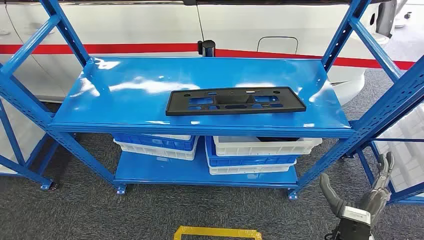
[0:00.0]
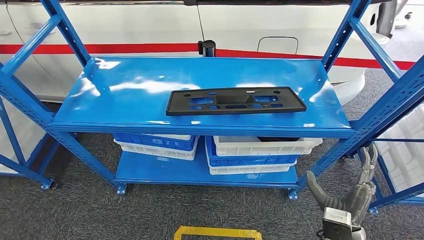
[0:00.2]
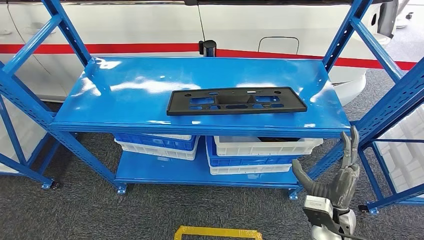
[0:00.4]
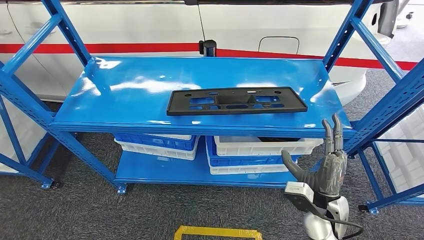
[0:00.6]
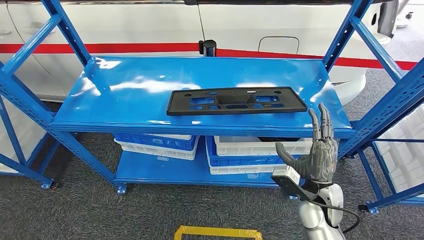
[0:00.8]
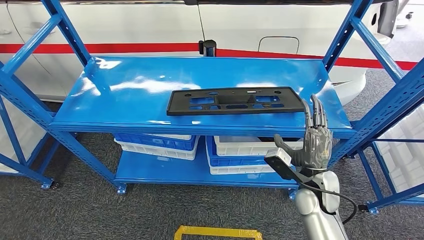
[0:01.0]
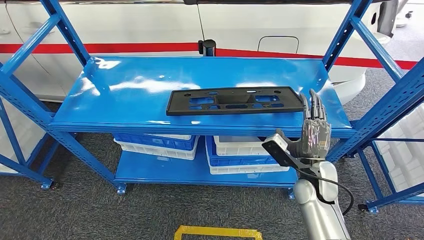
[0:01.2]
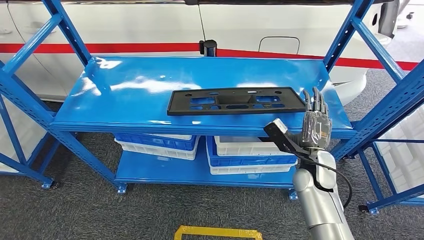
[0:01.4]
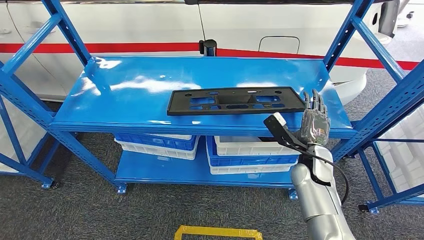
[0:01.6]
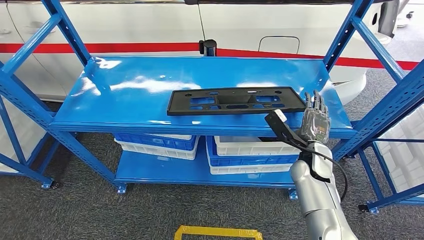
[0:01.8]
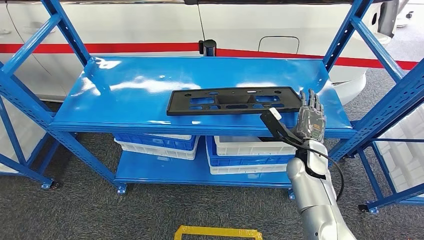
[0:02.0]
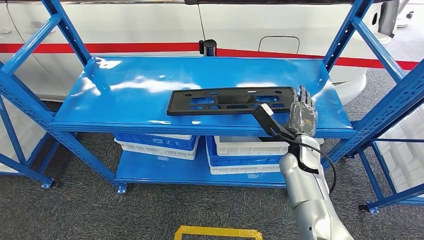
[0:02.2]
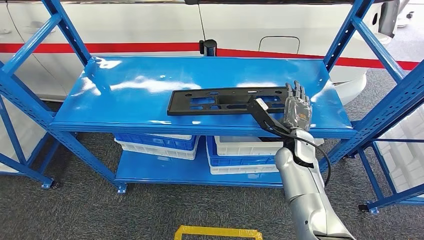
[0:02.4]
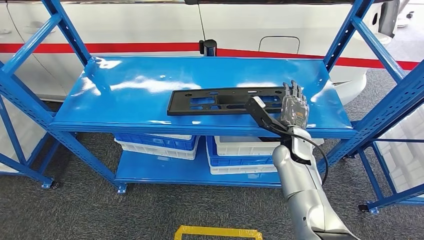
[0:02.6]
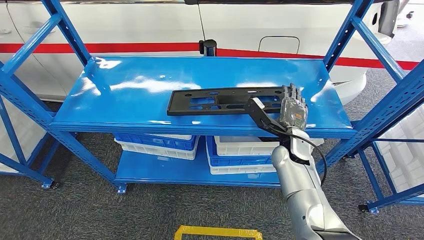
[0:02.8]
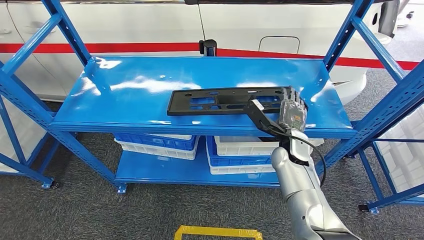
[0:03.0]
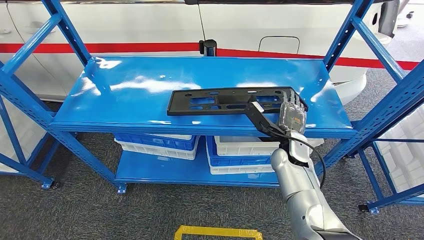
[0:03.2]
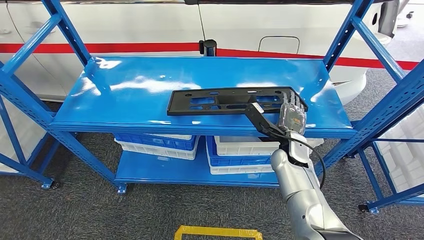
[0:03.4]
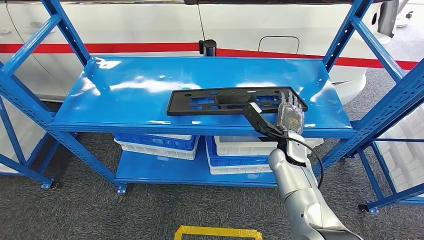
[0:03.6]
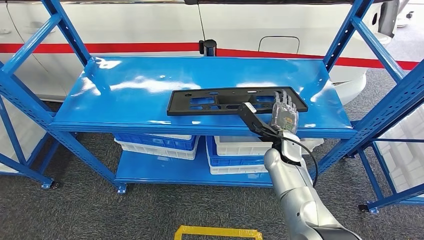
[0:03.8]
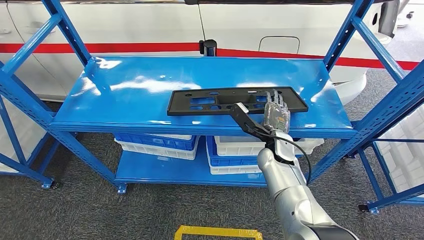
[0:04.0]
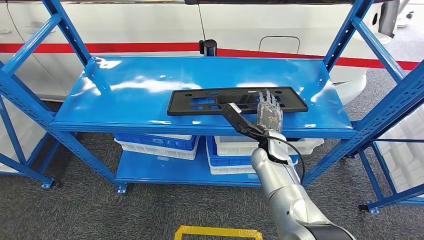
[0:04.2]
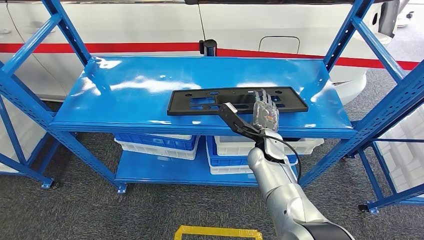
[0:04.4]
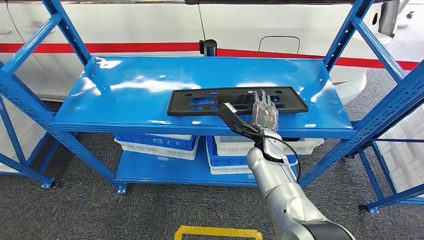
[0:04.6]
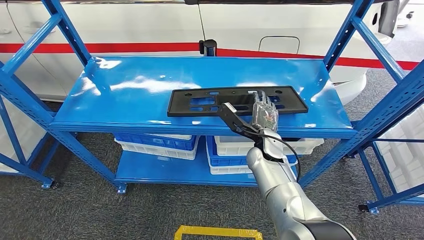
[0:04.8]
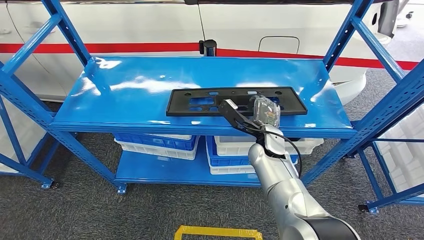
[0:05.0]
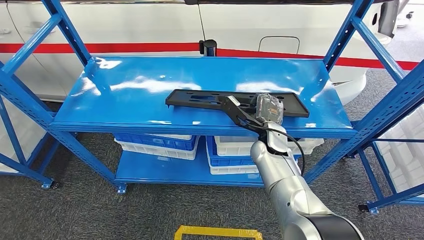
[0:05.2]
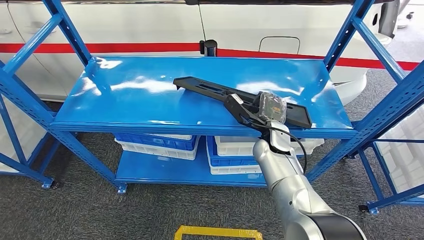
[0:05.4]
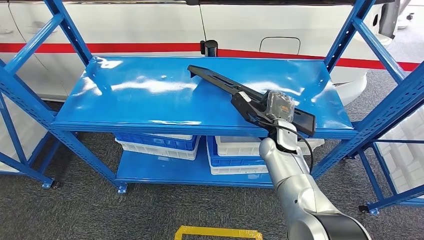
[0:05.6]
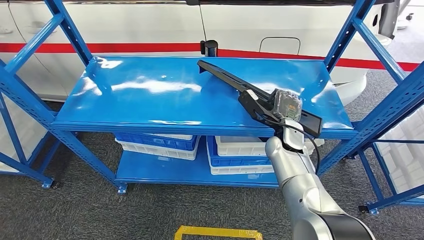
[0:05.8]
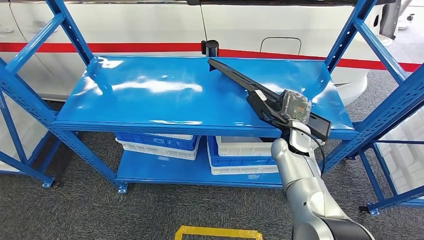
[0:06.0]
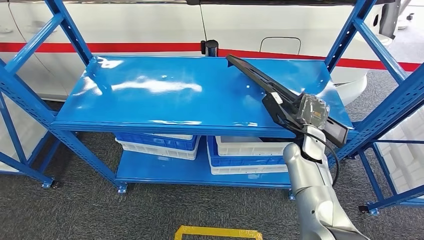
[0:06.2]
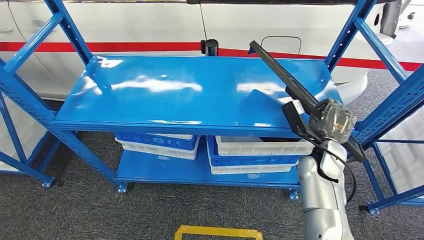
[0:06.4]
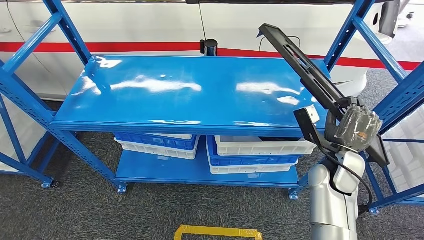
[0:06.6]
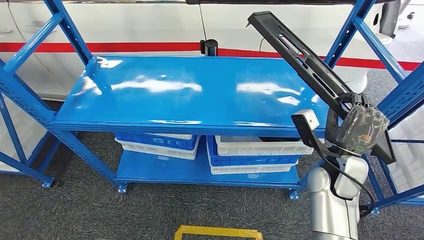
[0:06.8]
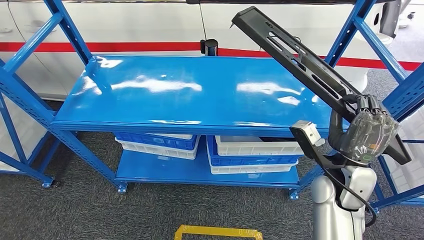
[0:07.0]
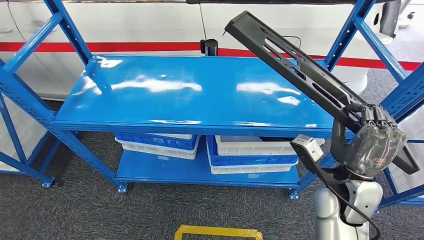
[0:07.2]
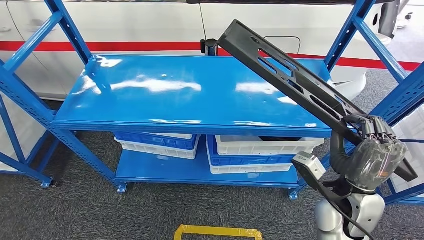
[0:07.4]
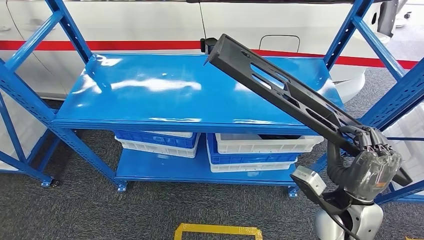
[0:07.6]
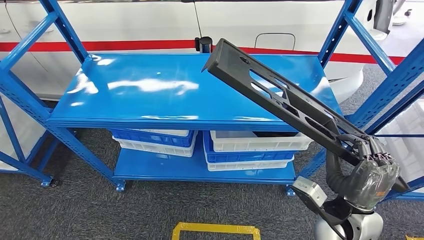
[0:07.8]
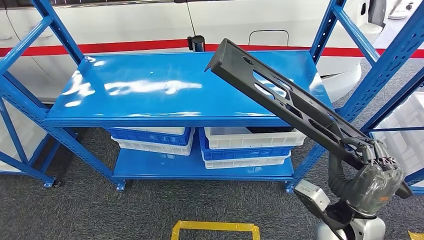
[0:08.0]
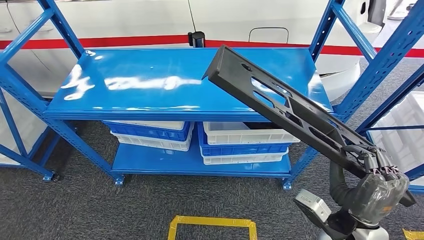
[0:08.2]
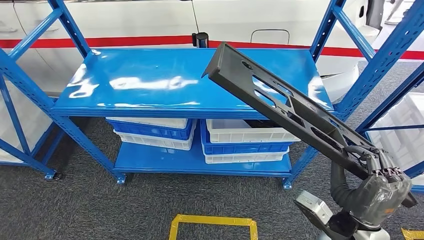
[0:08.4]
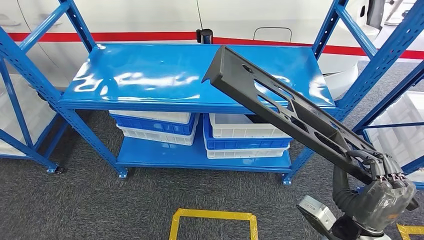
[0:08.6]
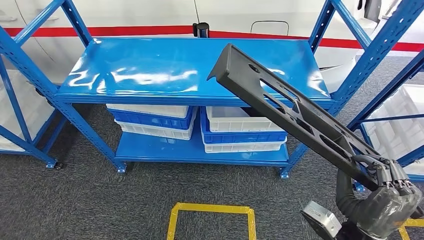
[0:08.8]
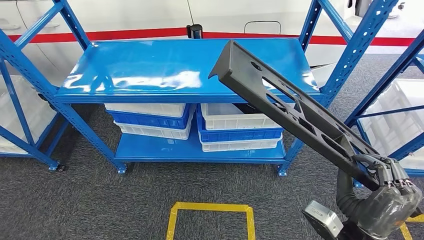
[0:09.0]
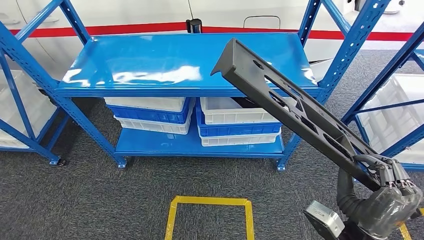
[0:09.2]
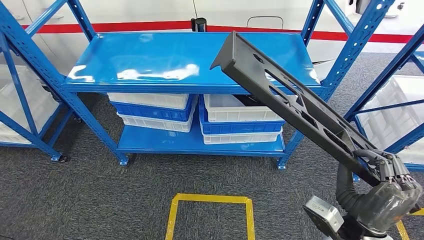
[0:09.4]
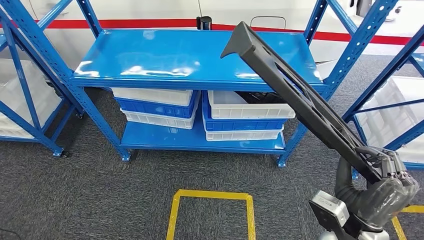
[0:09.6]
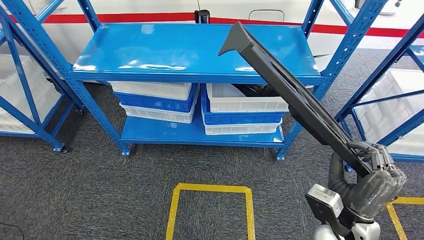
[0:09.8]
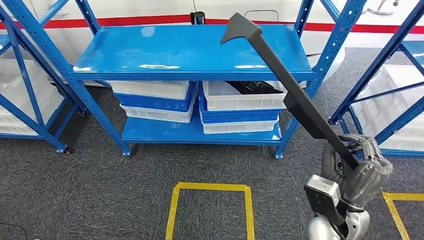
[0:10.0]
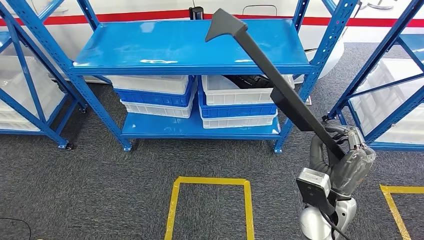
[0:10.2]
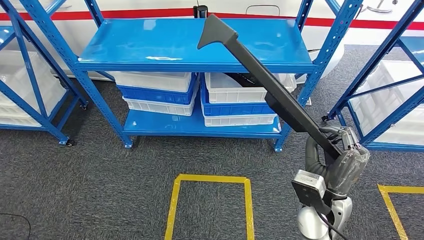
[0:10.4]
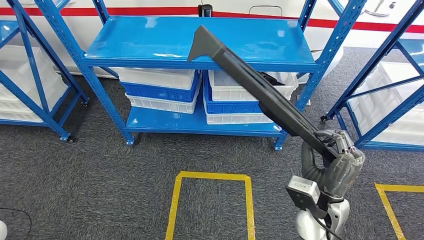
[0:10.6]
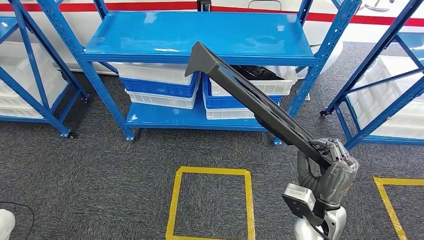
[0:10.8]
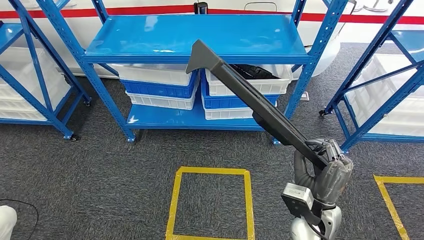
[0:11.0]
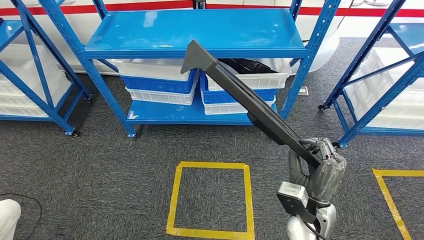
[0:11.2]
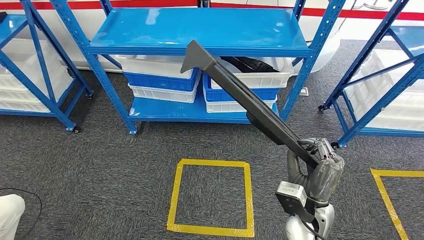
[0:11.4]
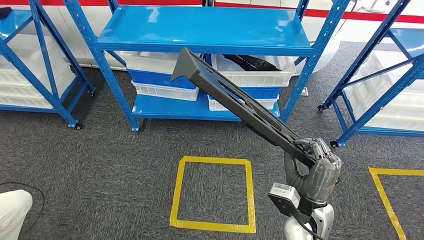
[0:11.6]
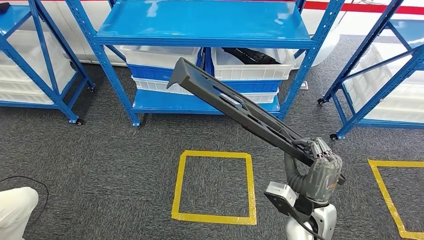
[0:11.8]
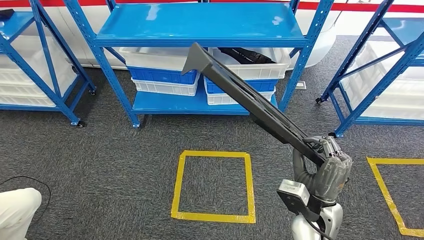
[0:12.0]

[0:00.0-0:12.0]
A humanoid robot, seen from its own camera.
Step, 0:00.0 to 0:09.2: Pick up the large material from the shelf.
0:01.6 to 0:03.0: The right hand changes place by about 5 cm.
0:03.0 to 0:04.4: The right hand shifts approximately 5 cm to the left.

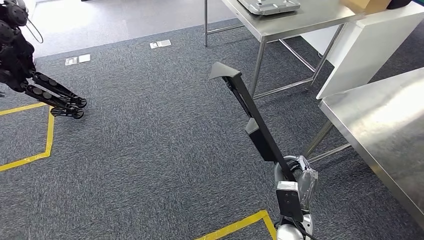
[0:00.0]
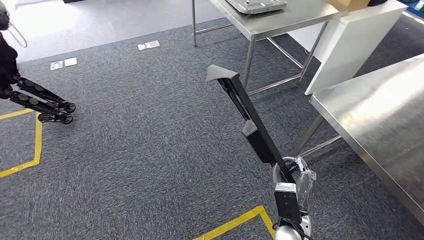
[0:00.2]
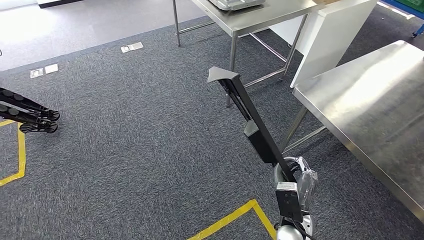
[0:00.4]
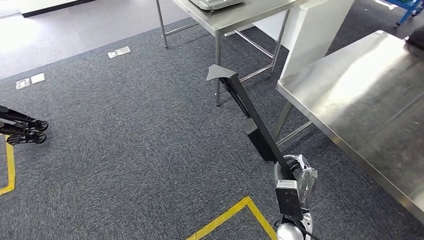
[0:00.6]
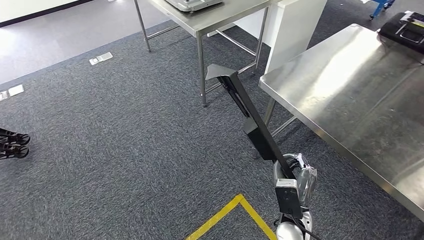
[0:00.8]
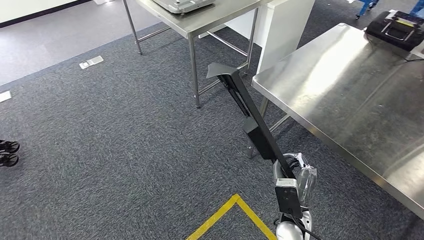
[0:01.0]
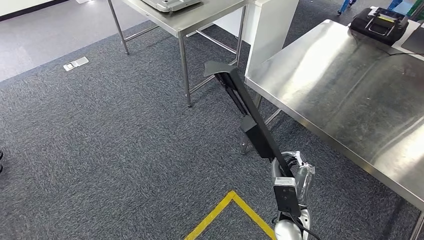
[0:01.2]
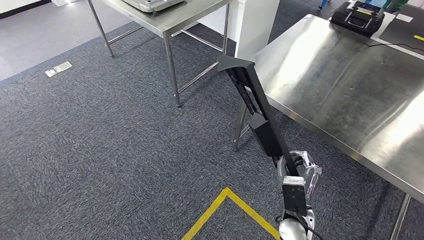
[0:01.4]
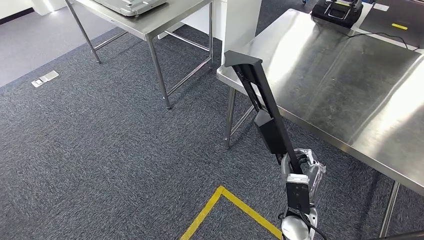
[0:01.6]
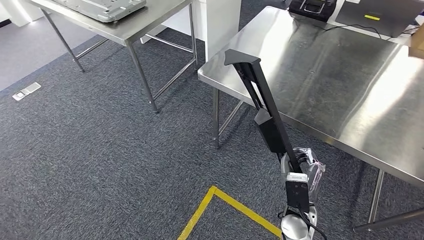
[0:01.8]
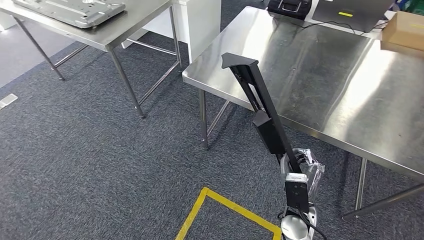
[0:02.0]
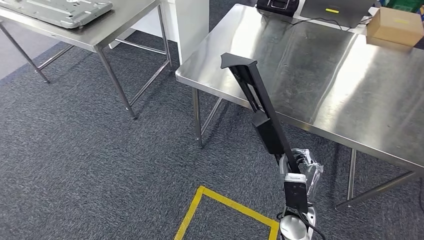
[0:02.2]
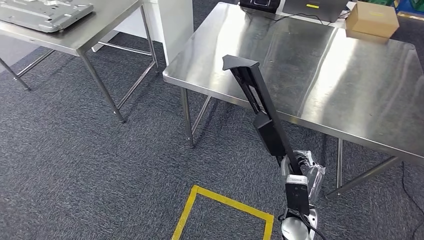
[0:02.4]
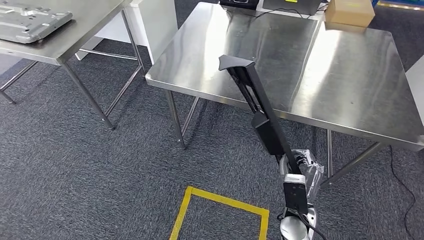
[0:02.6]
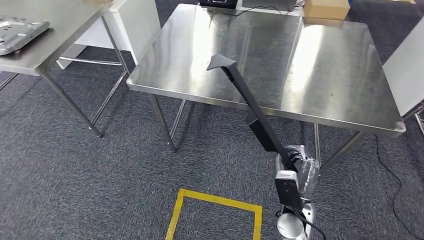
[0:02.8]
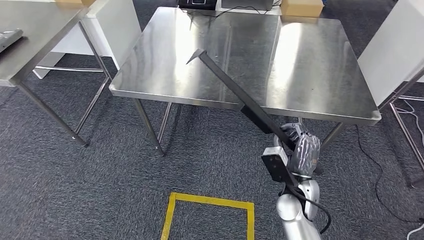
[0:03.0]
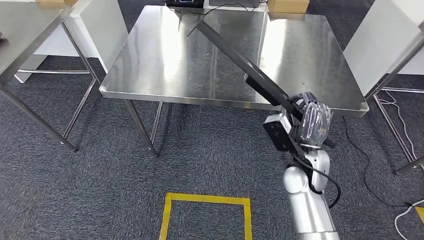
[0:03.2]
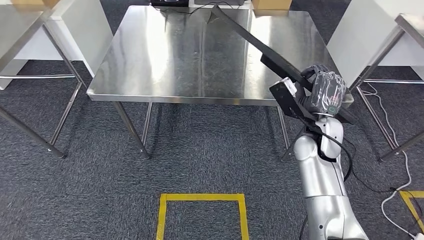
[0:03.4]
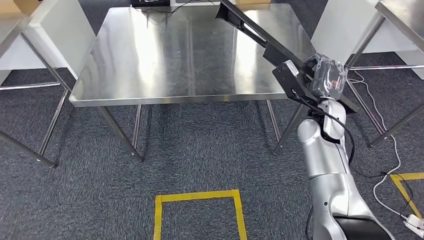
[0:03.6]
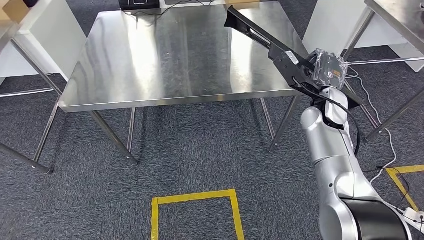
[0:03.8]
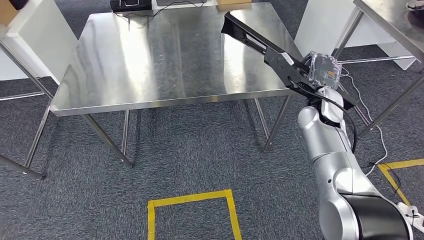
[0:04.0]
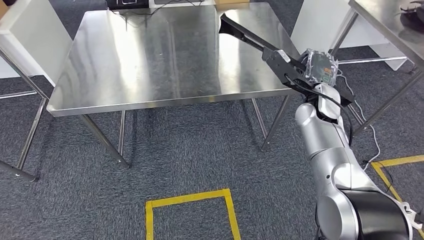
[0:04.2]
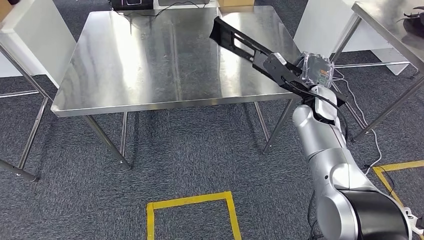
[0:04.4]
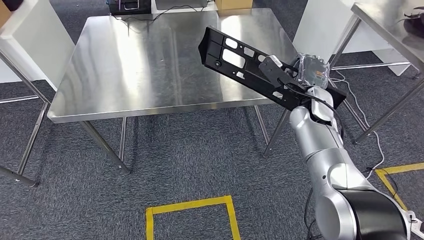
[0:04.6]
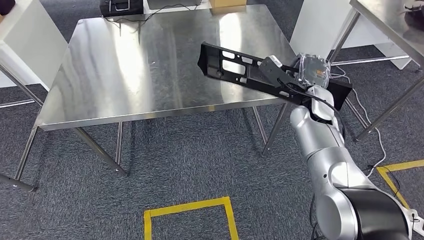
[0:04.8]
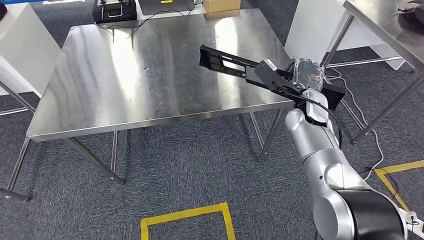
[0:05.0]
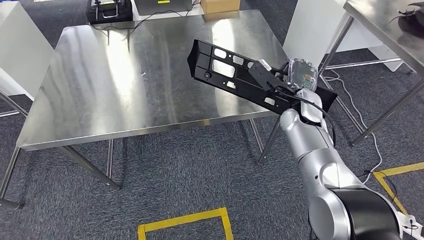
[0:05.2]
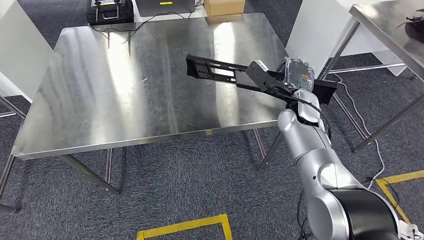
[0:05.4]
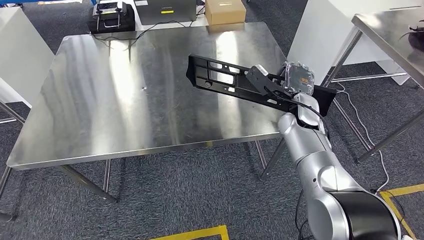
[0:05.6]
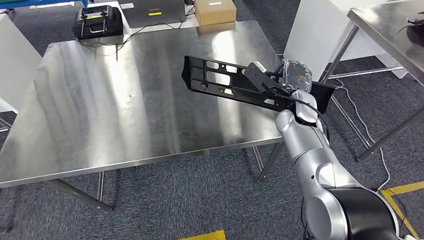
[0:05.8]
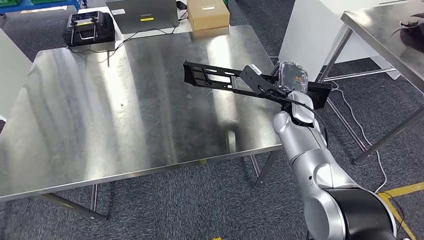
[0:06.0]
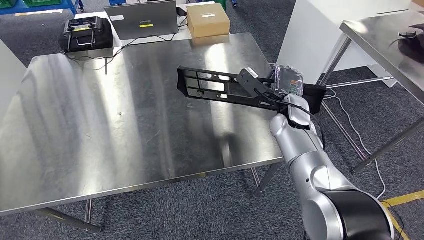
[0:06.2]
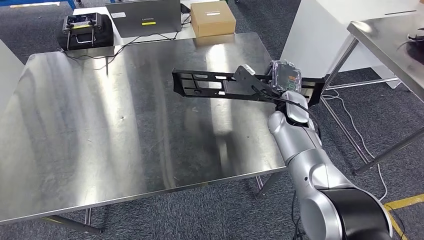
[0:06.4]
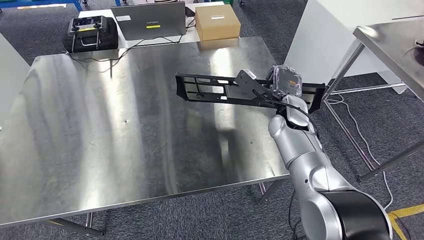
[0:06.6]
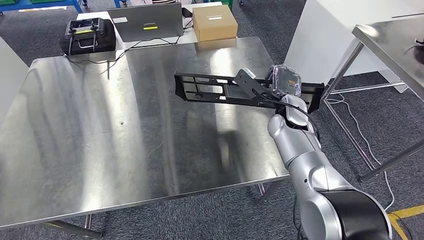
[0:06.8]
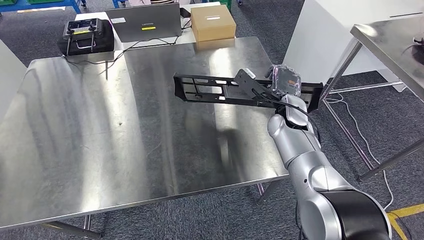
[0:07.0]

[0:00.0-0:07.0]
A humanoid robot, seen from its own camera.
Step, 0:00.0 to 0:04.0: Move the large material to the workbench.
